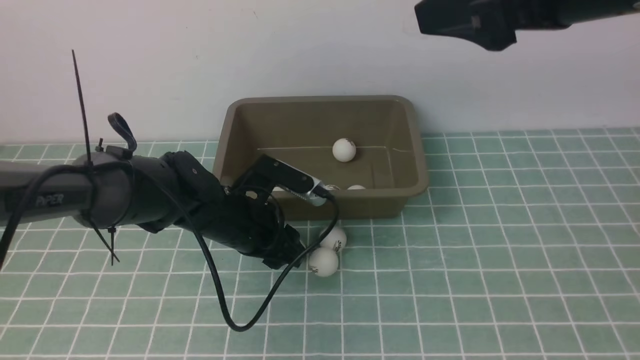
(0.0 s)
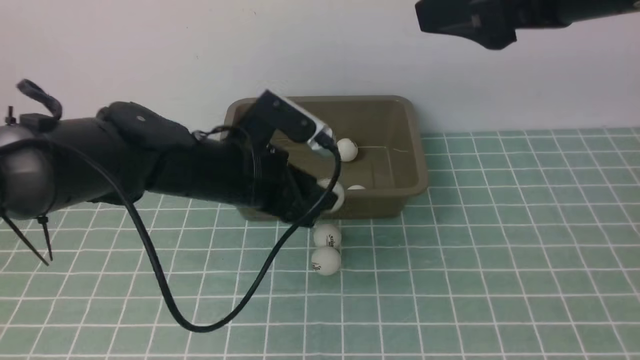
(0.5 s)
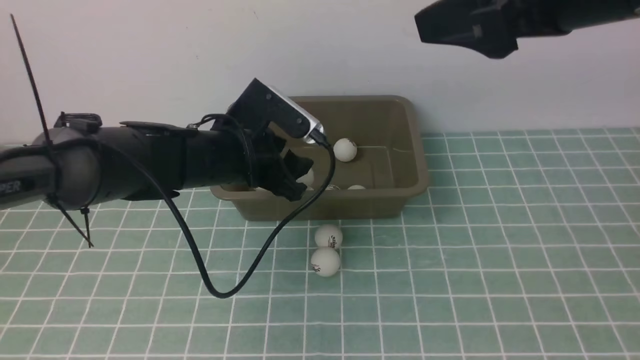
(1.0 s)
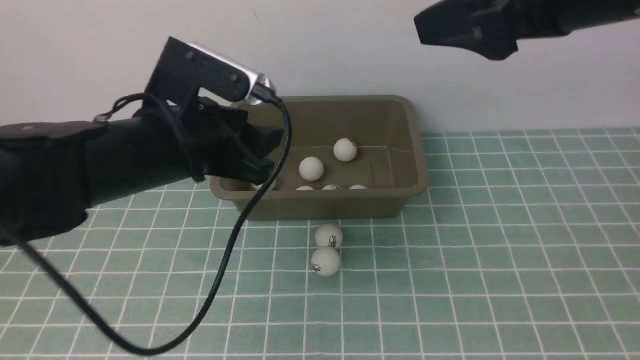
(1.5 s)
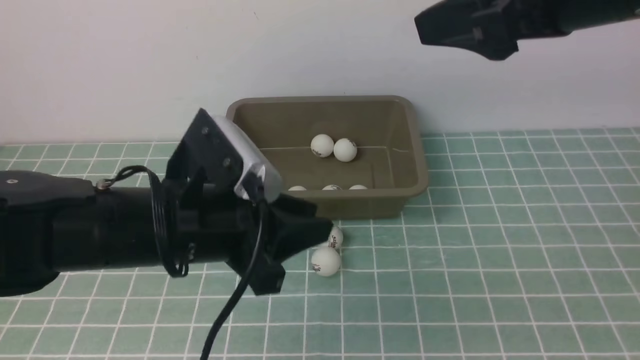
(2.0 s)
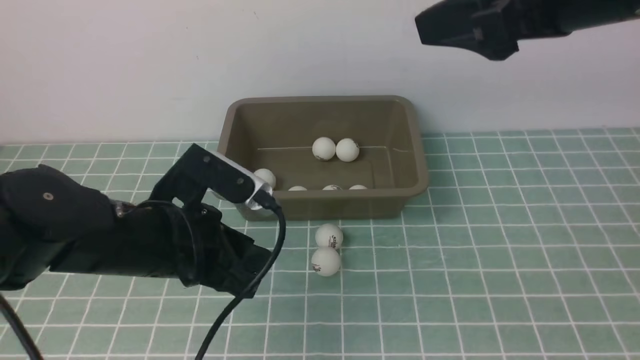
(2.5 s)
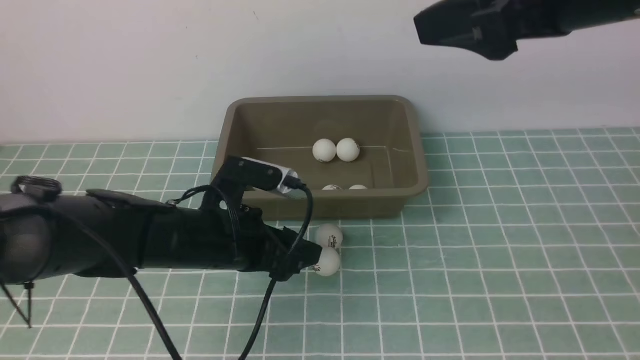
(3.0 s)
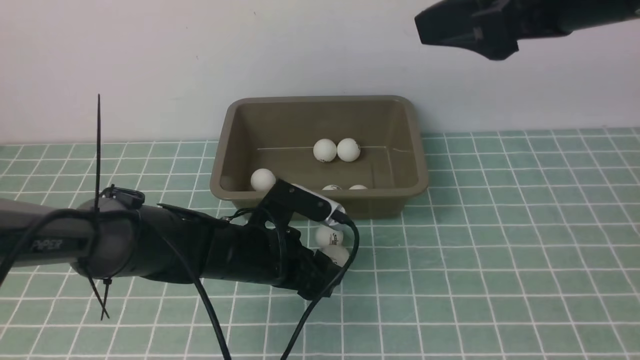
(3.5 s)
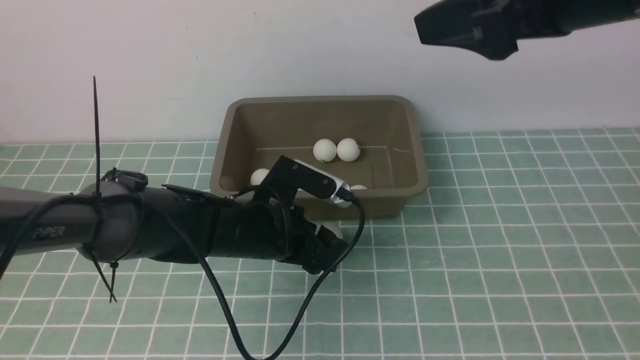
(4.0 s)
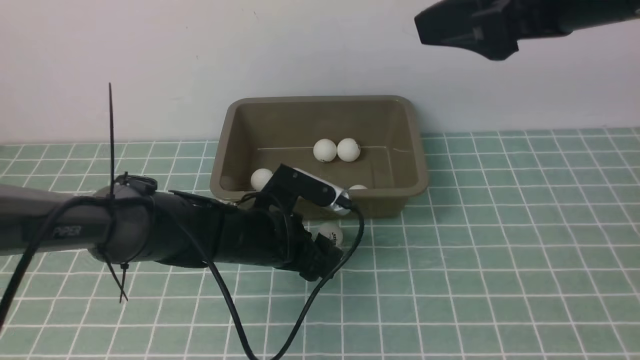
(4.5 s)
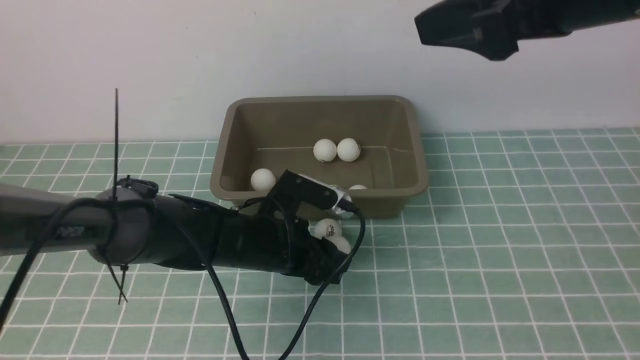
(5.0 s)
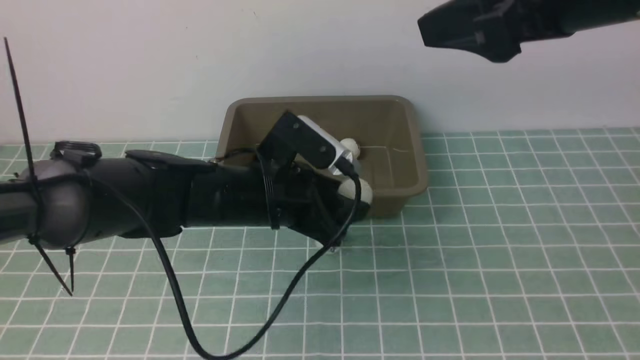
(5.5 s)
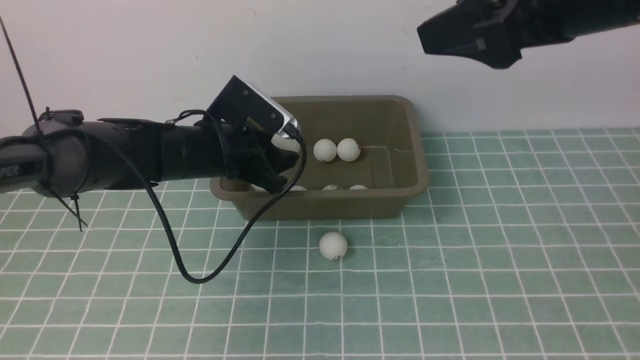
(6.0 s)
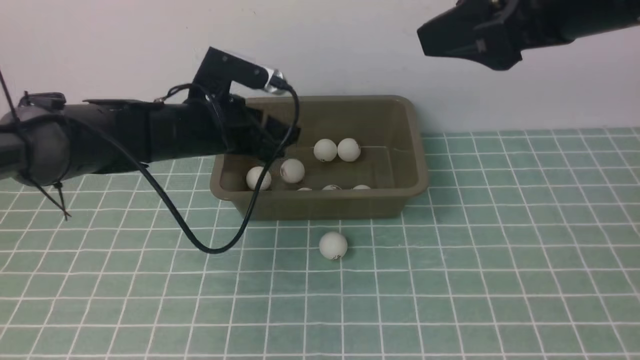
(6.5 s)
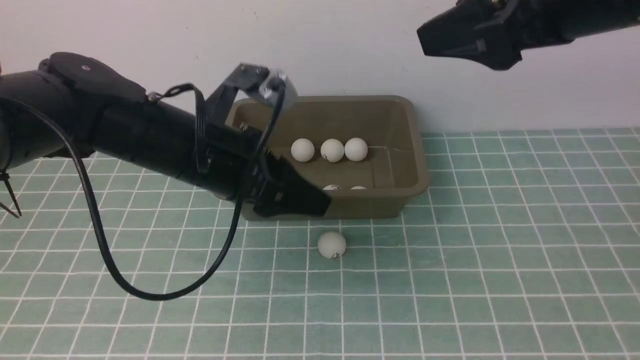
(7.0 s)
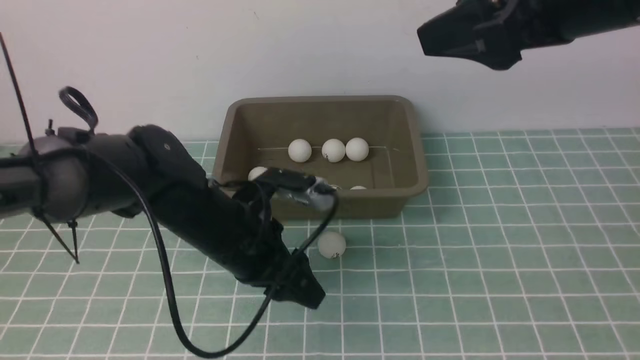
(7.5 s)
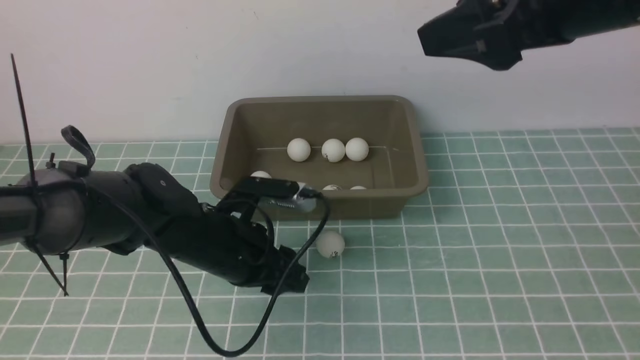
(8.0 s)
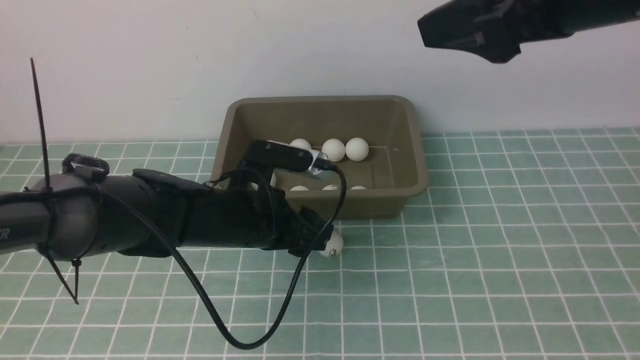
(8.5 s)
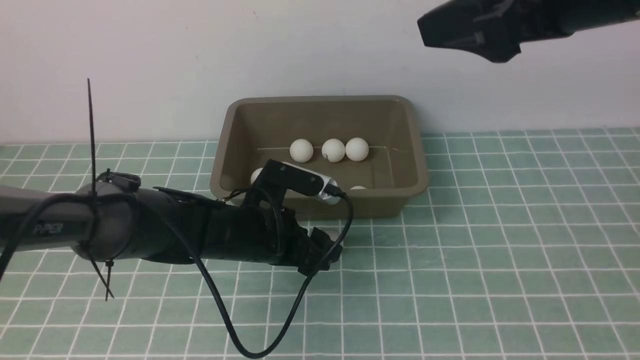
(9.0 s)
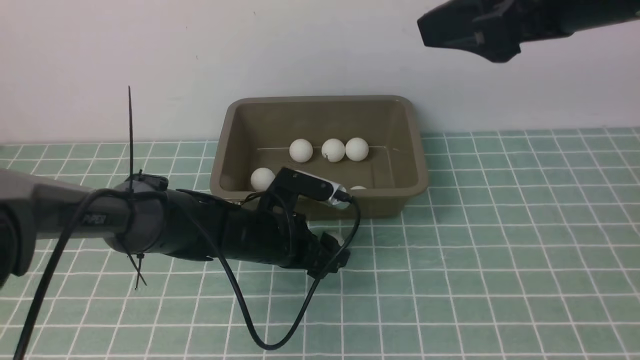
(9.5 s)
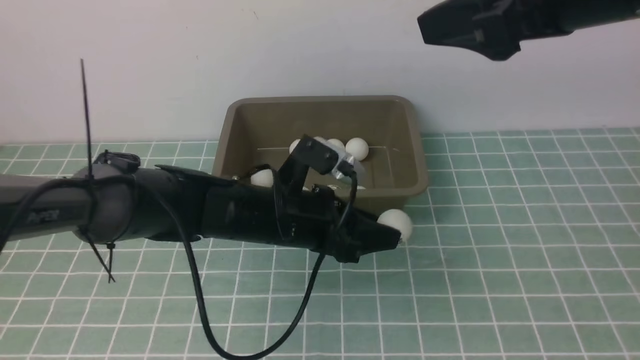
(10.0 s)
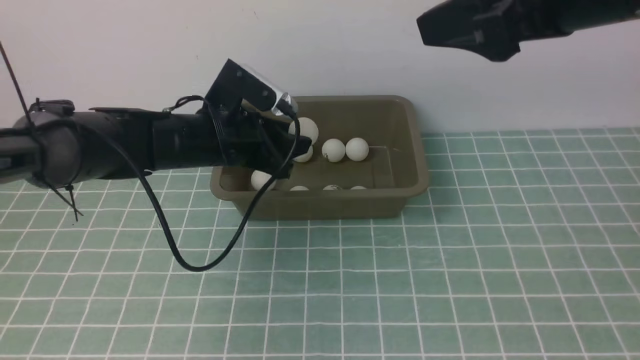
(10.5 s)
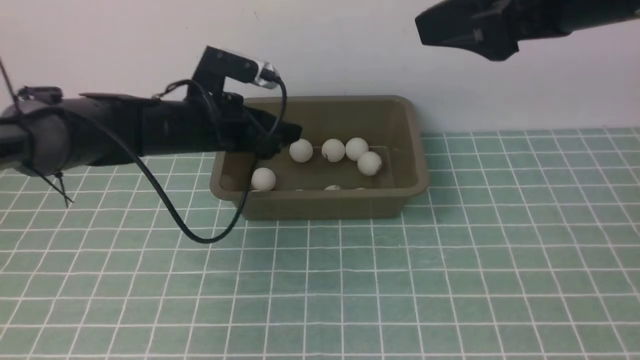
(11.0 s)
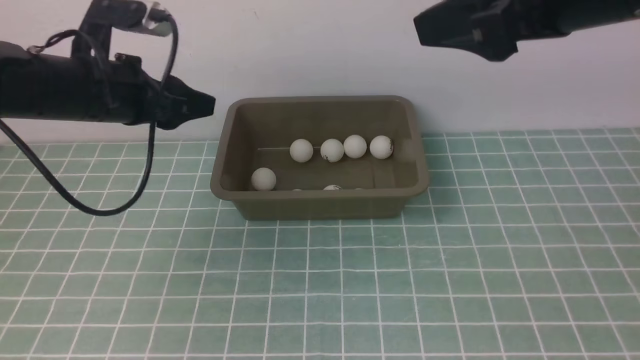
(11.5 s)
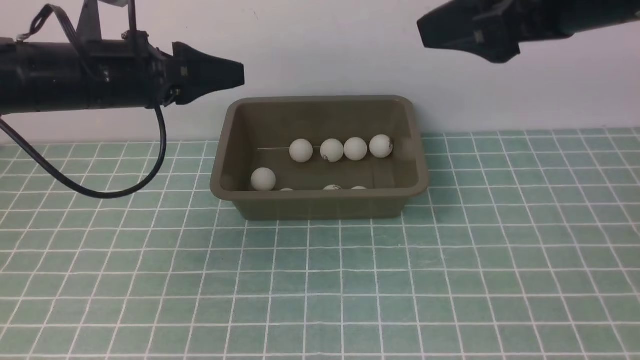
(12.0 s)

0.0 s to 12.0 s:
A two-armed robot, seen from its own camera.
Step, 1.5 to 5.0 s: use the left arm to clamp the table tennis ball closest to it.
Step, 5.5 to 6.0 s: use the left arm to put the table tennis ball into the box.
Step, 6.5 to 9.5 s: use the left arm to clamp the table tennis ball closest to it.
Step, 10.0 to 11.0 s: use the left arm to put the table tennis ball into the box.
0.0 to 2.0 s: The left gripper is displaced backward and upward by about 15 cm, and closes up.
2.0 to 4.0 s: The left gripper shifts some 15 cm downward and forward, and opens its fingers.
4.0 to 6.0 s: The left gripper shifts roughly 10 cm forward, upward and to the left.
6.0 to 8.0 s: The left gripper heads backward, covering approximately 10 cm.
8.0 to 10.0 s: The left gripper shifts by some 5 cm.
10.0 to 12.0 s: The left gripper moves to the left and upward, approximately 20 cm.

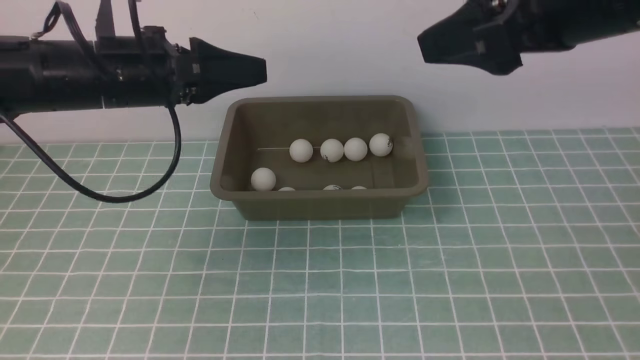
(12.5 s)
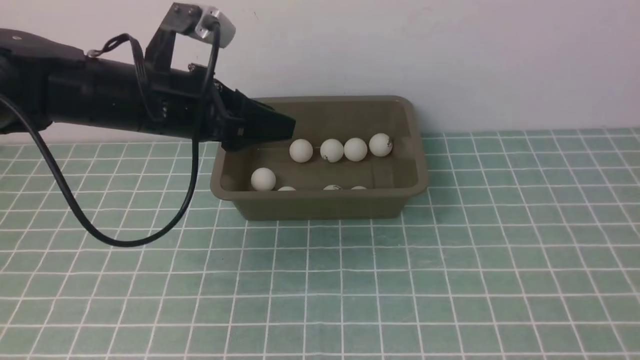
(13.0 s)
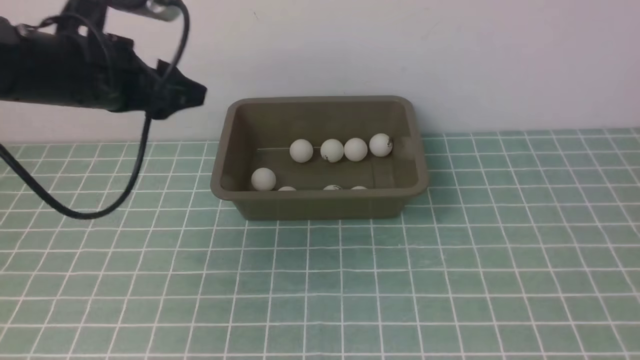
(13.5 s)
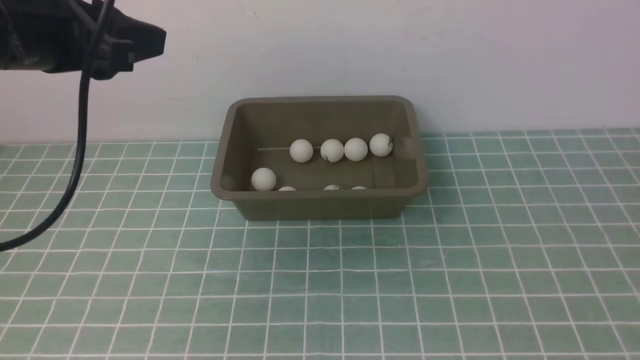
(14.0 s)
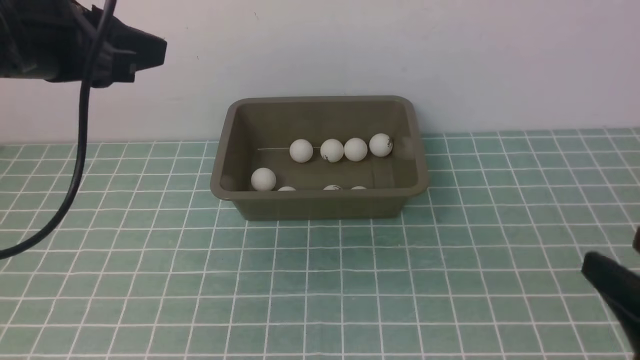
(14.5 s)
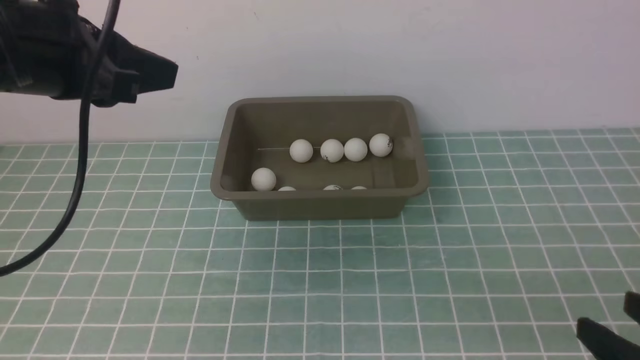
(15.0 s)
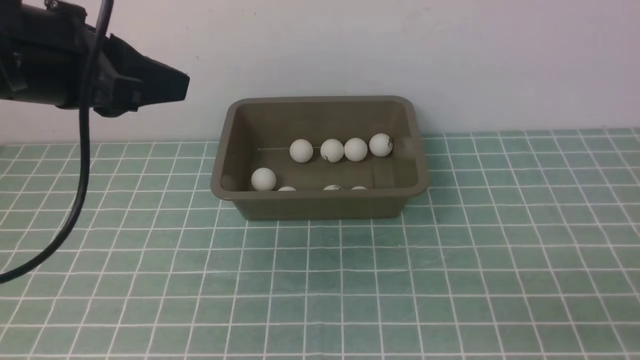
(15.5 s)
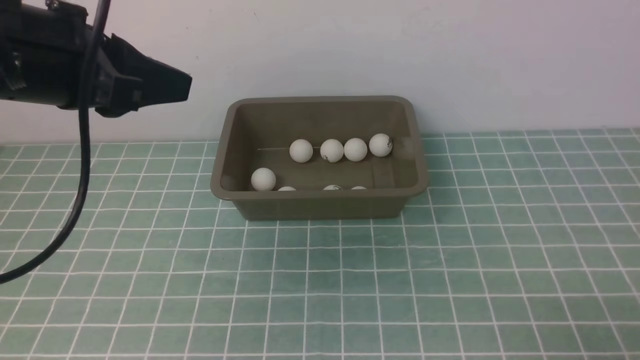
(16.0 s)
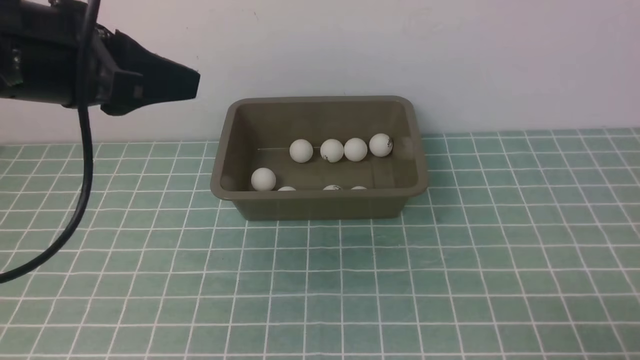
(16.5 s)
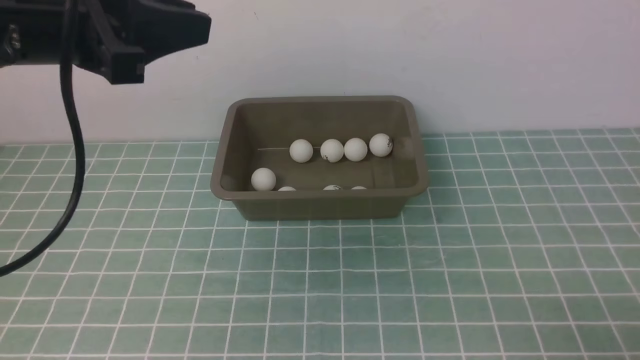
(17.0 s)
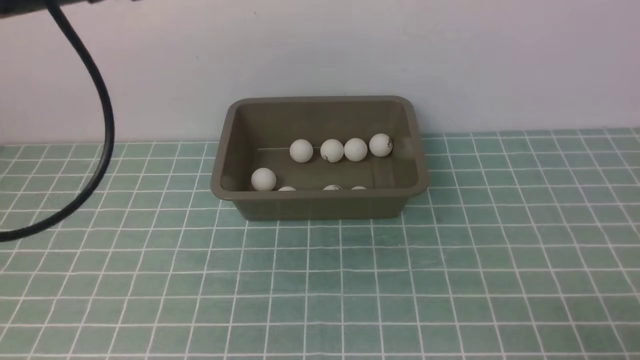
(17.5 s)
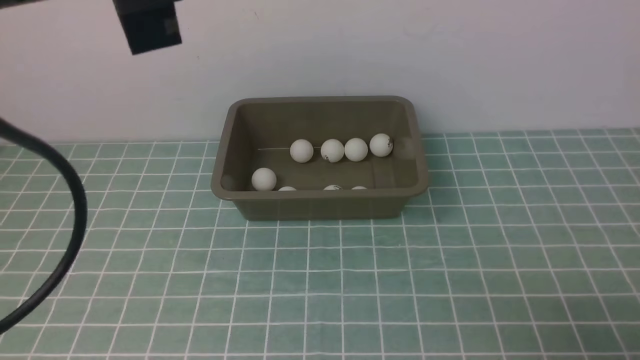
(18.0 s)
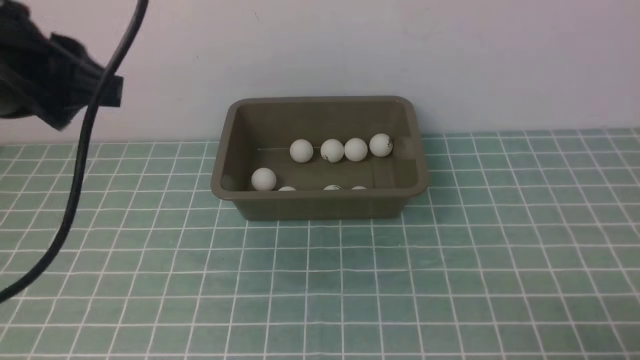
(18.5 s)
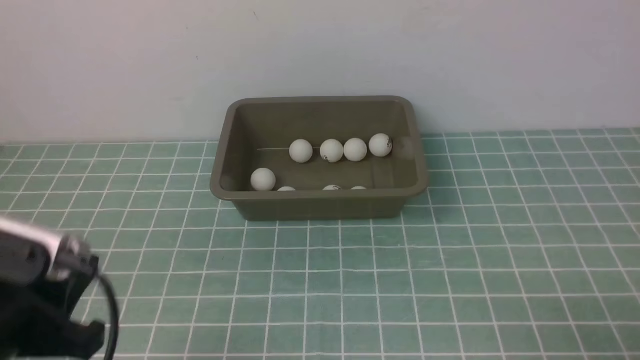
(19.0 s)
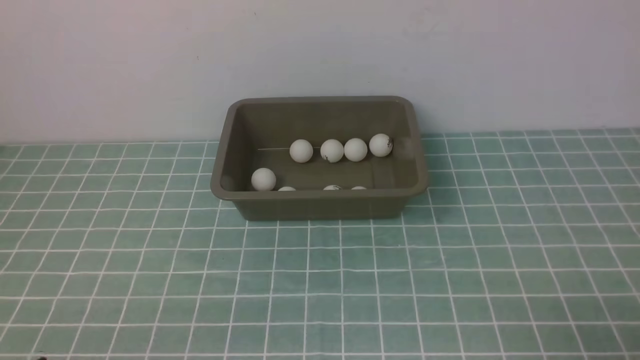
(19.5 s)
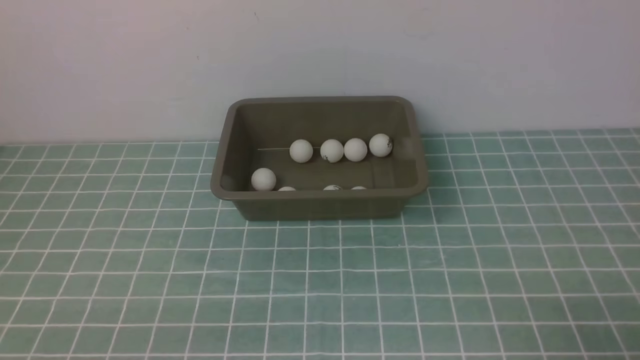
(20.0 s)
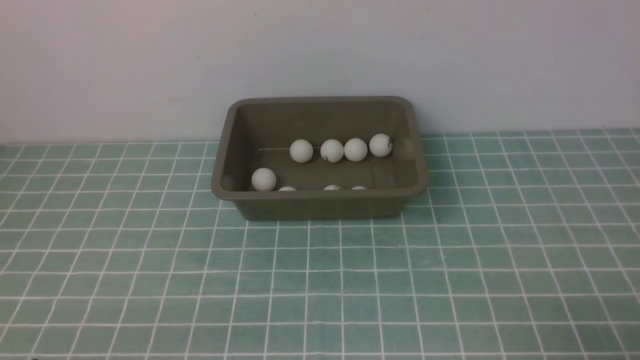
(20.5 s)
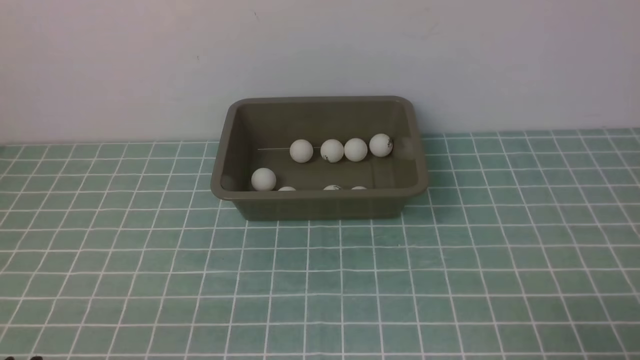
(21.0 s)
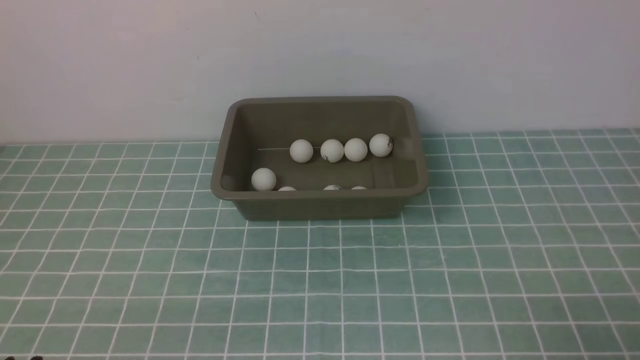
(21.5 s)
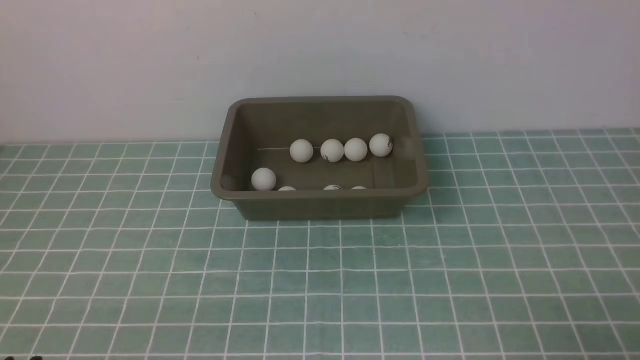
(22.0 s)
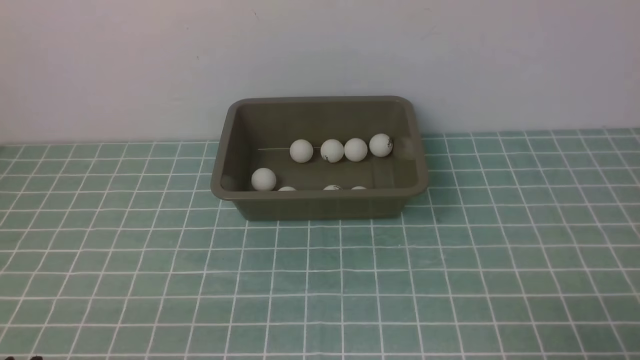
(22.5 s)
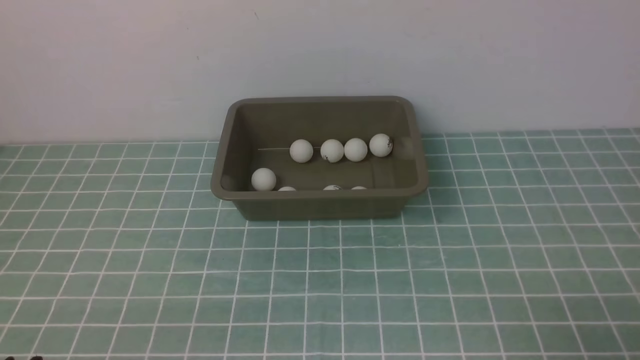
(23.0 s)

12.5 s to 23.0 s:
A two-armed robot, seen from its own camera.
12.5 to 14.5 s: The right gripper goes some 25 cm downward and backward. The left gripper travels upward and backward by some 10 cm, and closes its fingers.
14.5 to 16.5 s: The right gripper moves downward, approximately 10 cm.
16.5 to 19.0 s: The left gripper heads backward and downward, covering approximately 15 cm.
19.0 to 21.0 s: The left gripper travels downward and backward by some 15 cm.
